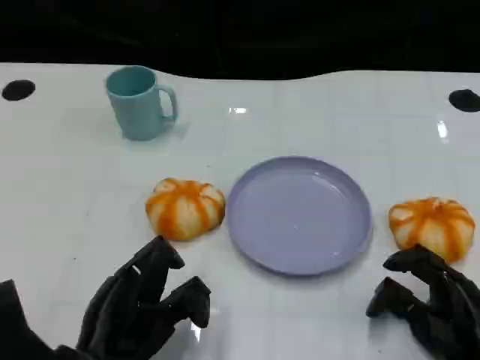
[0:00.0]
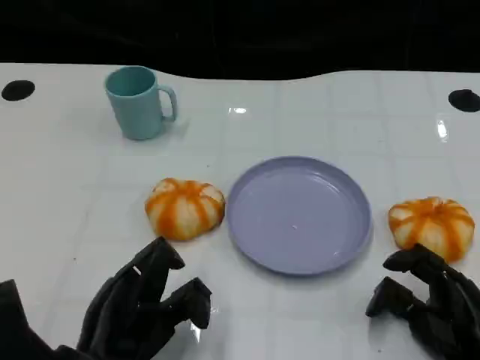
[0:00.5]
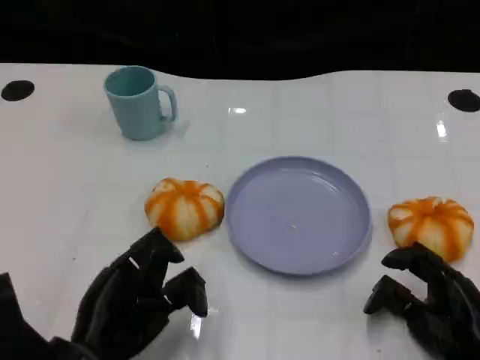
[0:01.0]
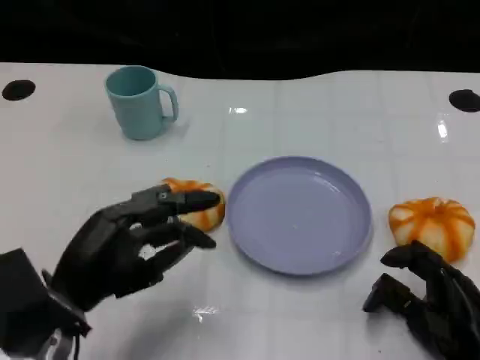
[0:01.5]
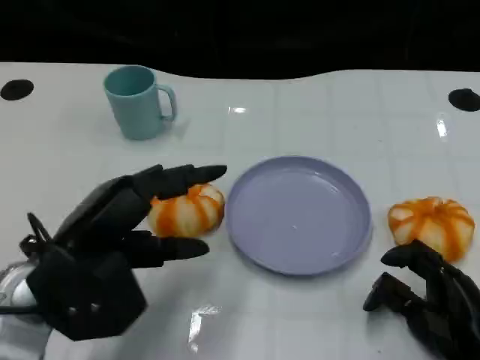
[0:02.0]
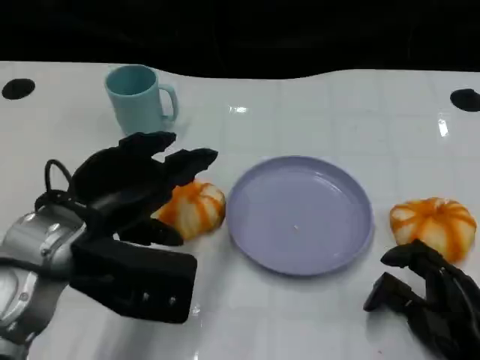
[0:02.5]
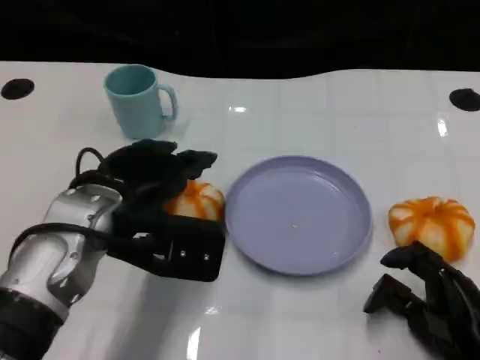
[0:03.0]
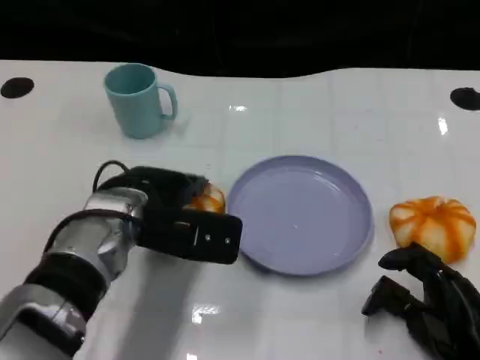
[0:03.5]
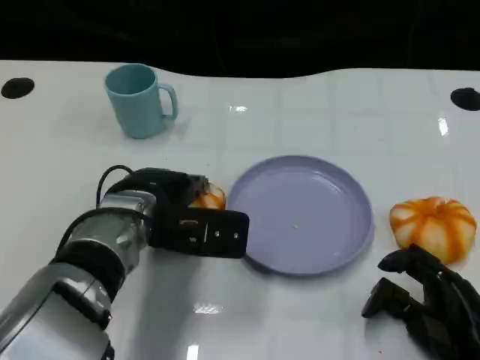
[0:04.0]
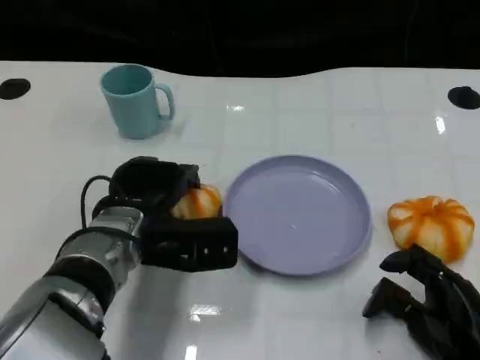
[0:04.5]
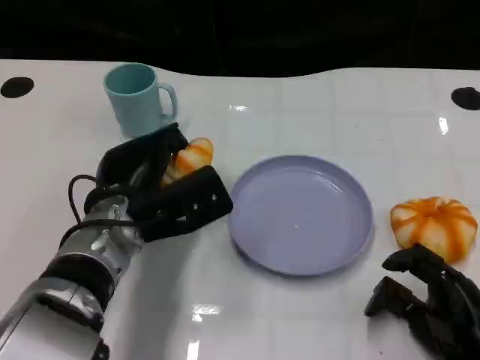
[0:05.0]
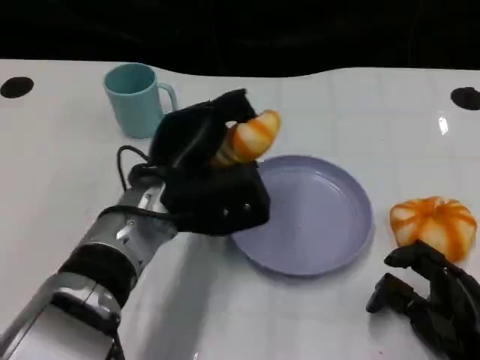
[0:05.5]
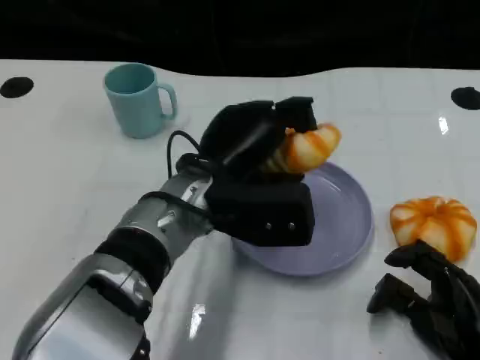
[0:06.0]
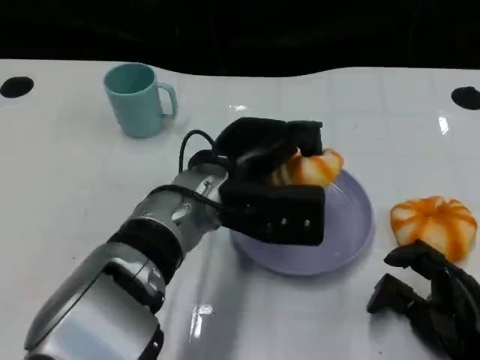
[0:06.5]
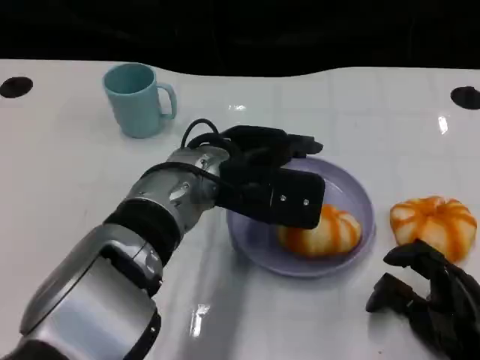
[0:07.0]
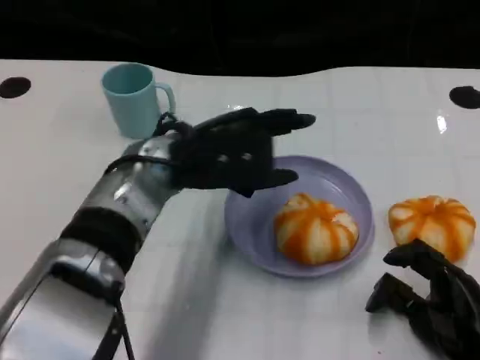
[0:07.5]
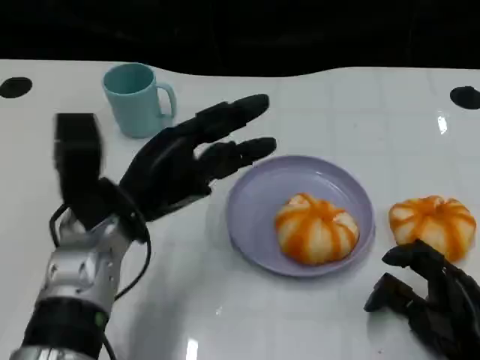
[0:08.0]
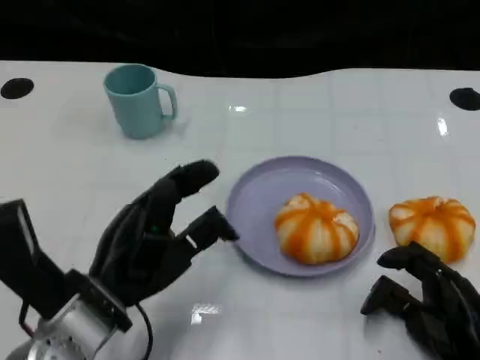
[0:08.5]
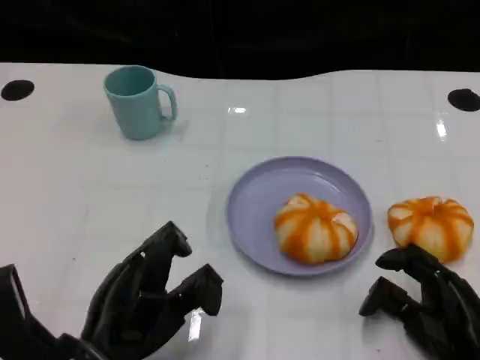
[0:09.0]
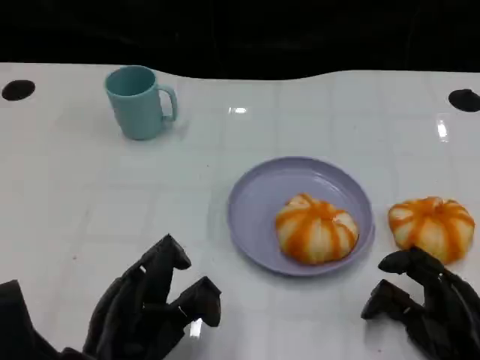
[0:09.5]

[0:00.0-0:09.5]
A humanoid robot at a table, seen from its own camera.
Task of the whole recording: Grasp the bread from the table and place it into the plate.
0:00.0 to 0:02.0: The left hand goes approximately 10 cm upward and forward.
0:02.0 to 0:04.0: The left hand travels forward and to the right by approximately 10 cm.
0:07.5 to 0:09.5: The left hand goes roughly 20 cm backward, downward and to the left.

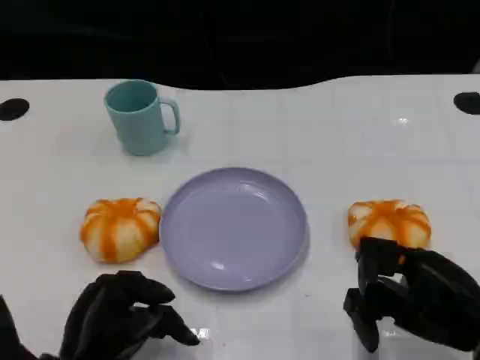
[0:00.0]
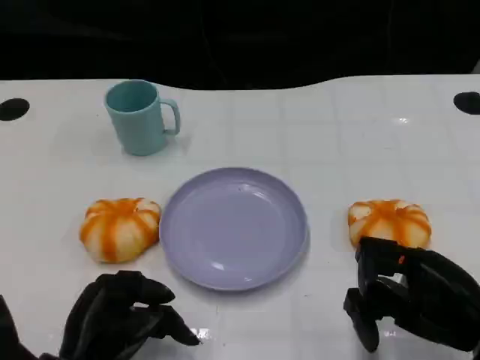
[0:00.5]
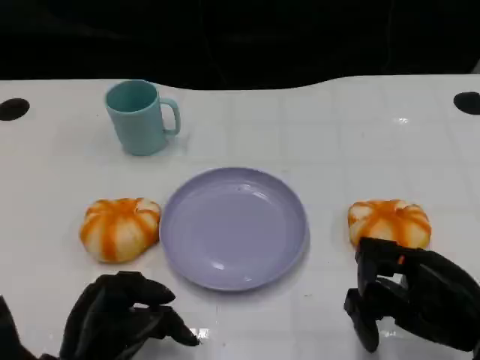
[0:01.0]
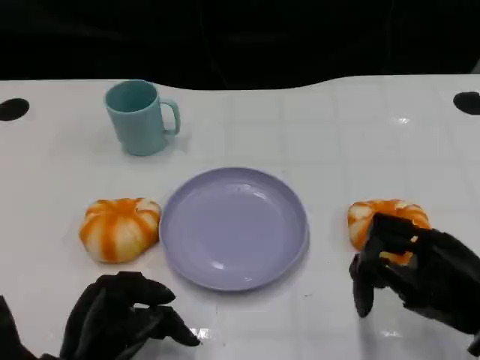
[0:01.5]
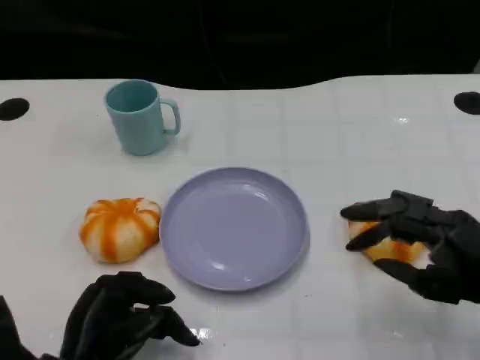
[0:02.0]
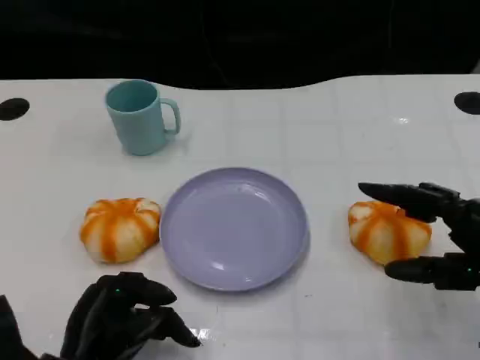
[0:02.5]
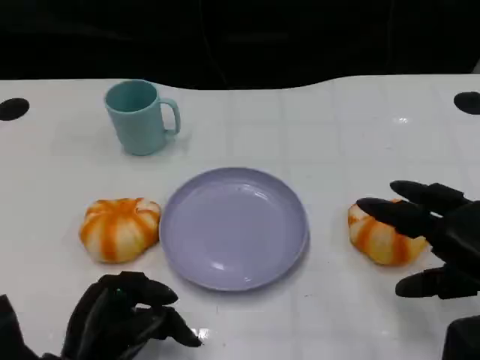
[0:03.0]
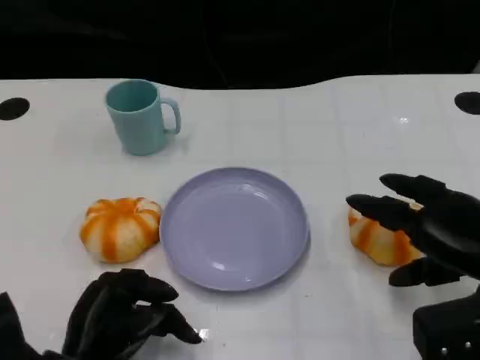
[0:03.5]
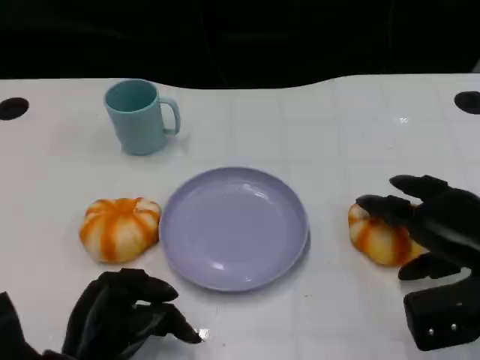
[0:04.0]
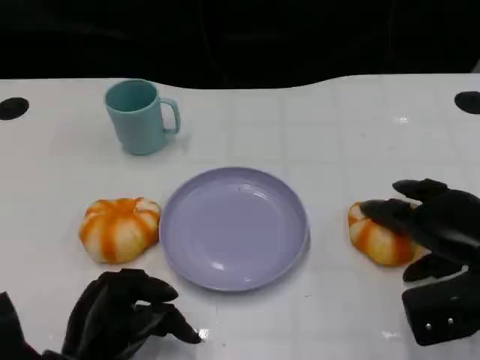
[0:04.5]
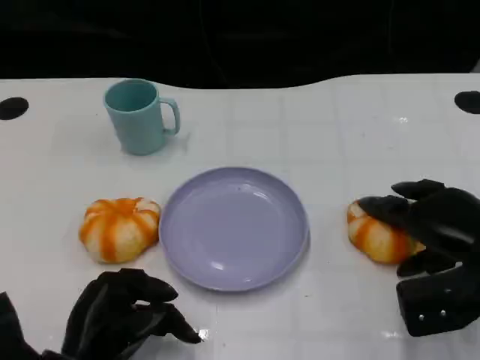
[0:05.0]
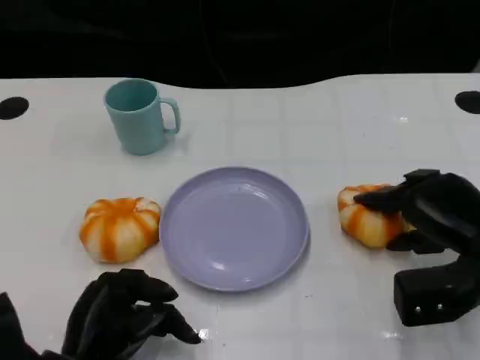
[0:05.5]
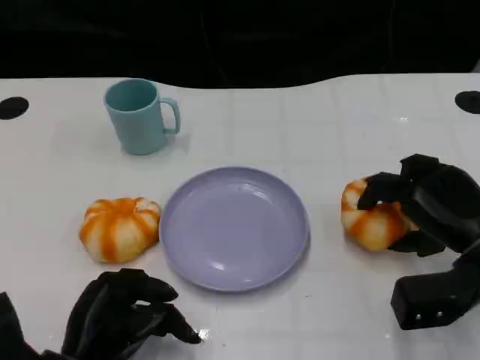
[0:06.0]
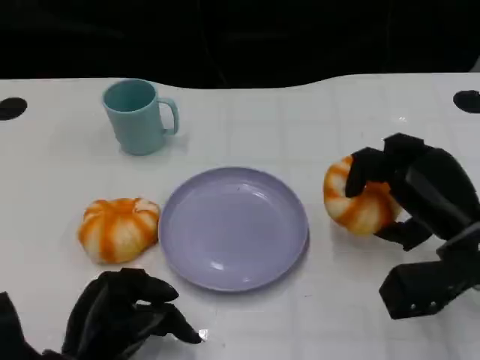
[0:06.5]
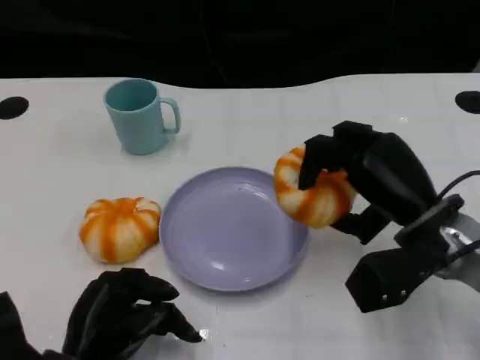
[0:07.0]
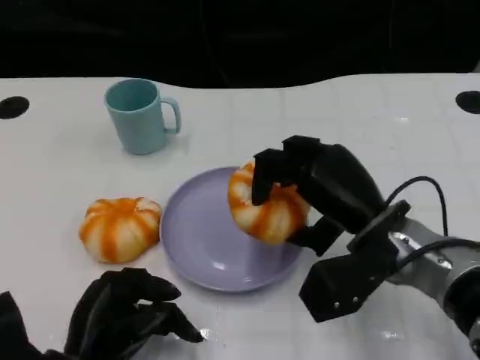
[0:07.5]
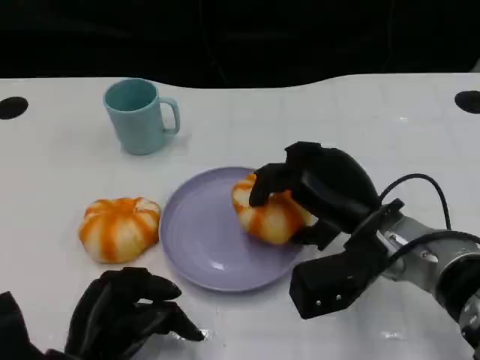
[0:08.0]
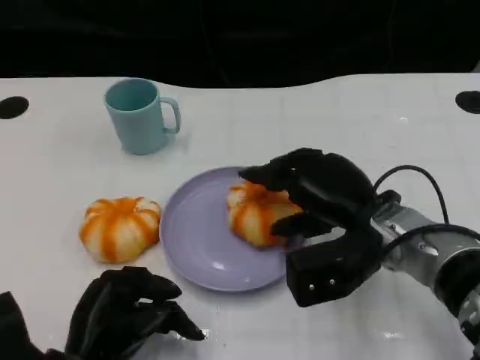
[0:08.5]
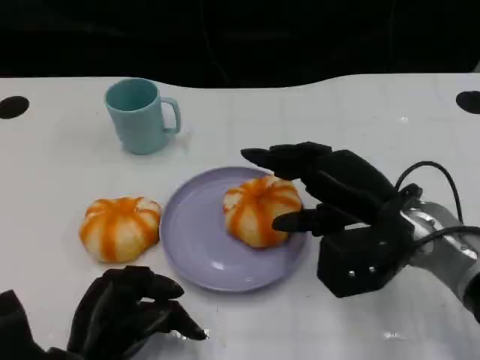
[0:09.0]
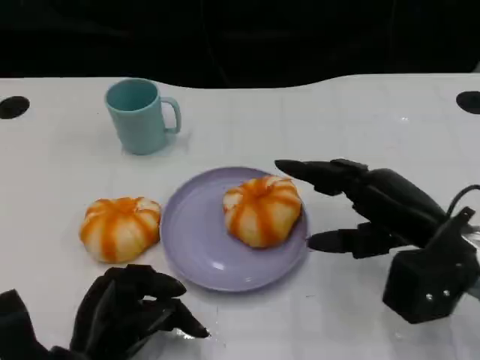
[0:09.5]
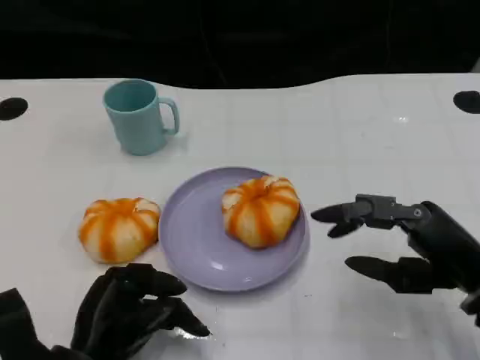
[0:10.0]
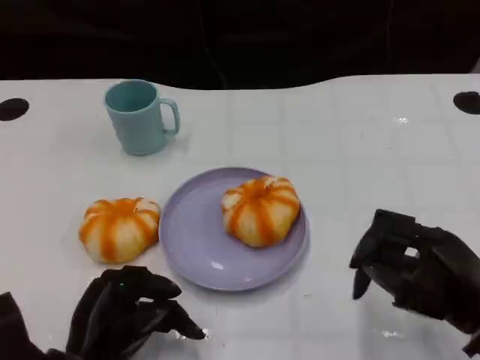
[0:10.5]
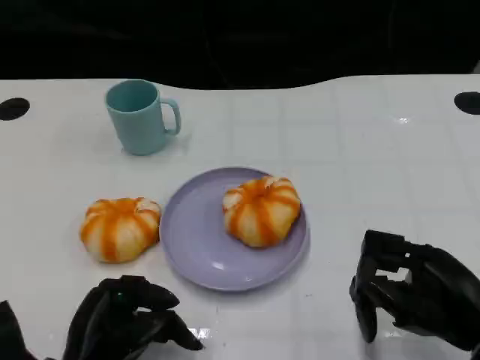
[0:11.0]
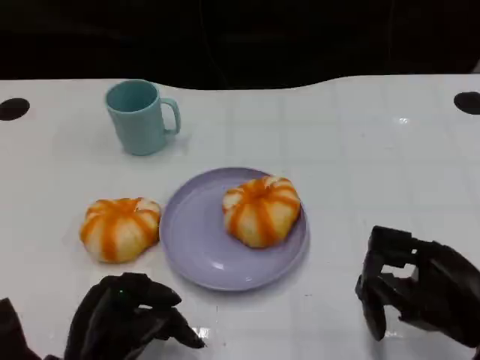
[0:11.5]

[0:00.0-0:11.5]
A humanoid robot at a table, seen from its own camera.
Task of the whole recording: Grasp the bread from the table and place it into the plate.
0:02.0 to 0:04.0: The right hand travels forward by roughly 5 cm.
0:06.0 to 0:07.5: The right hand moves to the left, about 10 cm.
0:07.5 to 0:09.5: The right hand is displaced to the right by some 10 cm.
0:09.5 to 0:11.5: The right hand shifts some 5 cm backward.

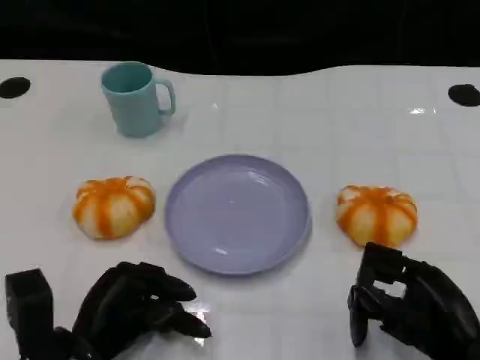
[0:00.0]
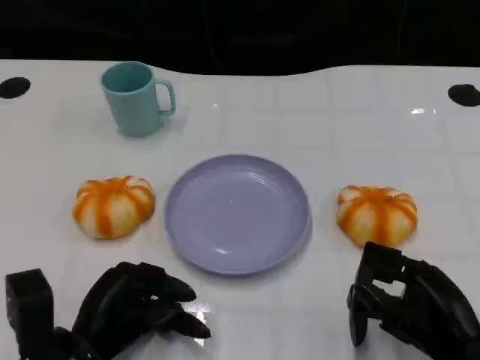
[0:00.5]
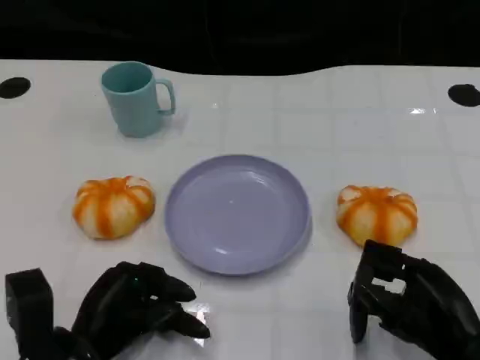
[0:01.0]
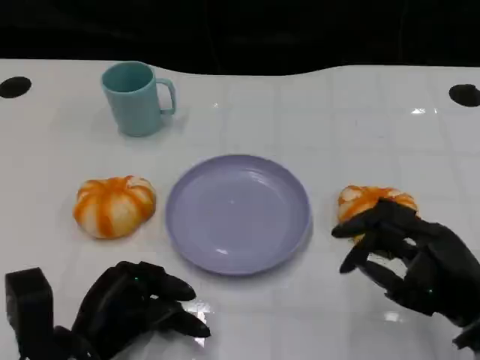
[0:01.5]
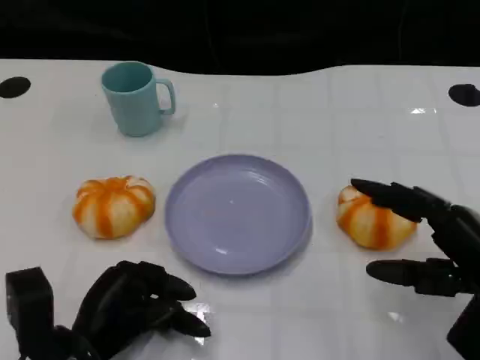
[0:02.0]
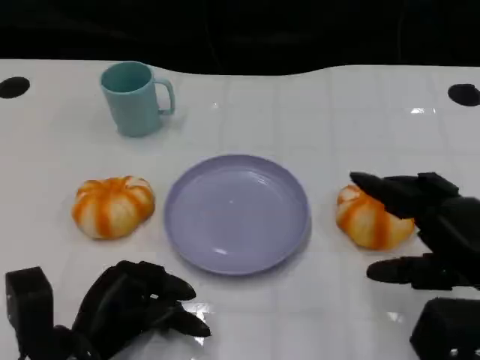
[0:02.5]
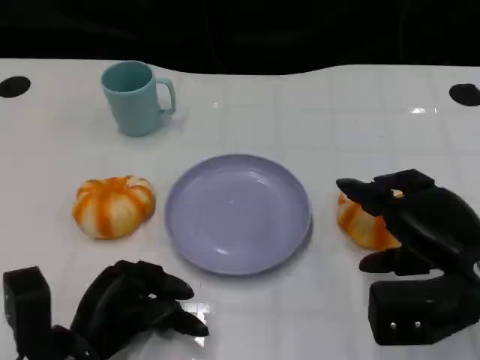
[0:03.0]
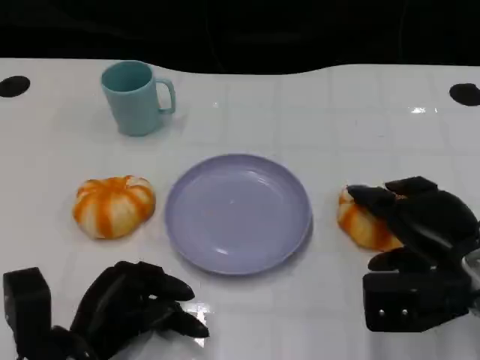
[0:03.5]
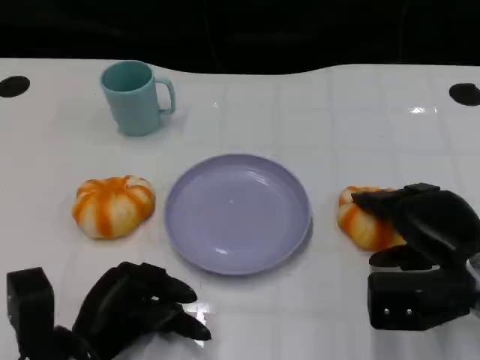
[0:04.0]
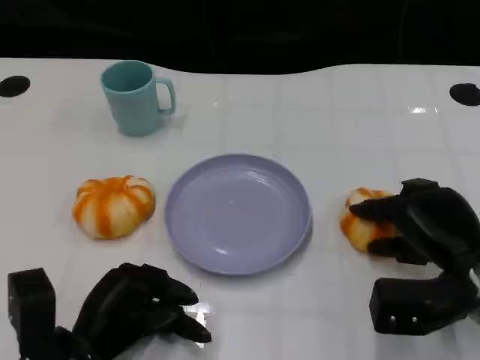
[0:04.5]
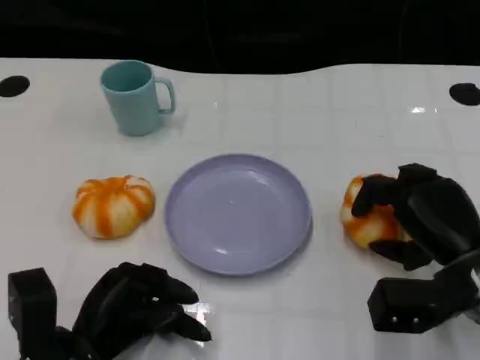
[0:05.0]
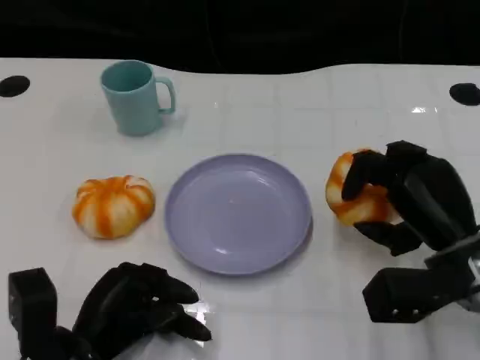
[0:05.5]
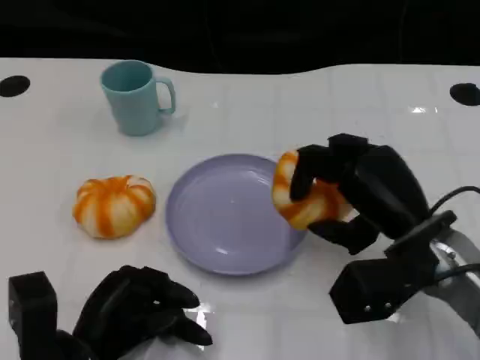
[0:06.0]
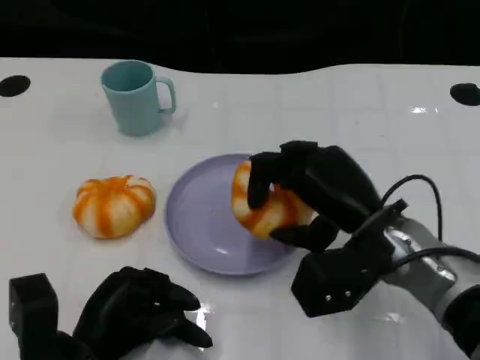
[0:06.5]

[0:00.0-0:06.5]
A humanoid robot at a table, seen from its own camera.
Task of the whole recording: Grasp the bread from the table and place it into the plate.
0:00.0 to 0:02.0: The right hand changes place by about 5 cm.
0:02.0 to 0:04.5: The right hand goes roughly 10 cm forward and downward.
0:04.5 to 0:06.5: The right hand travels to the left and upward by roughly 10 cm.
